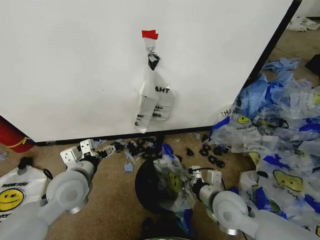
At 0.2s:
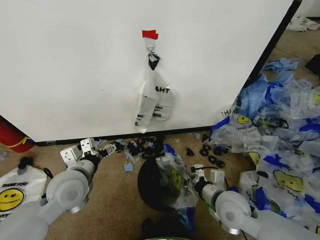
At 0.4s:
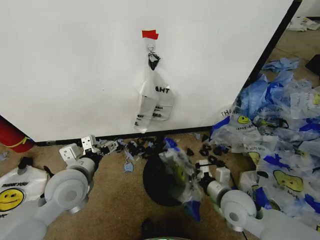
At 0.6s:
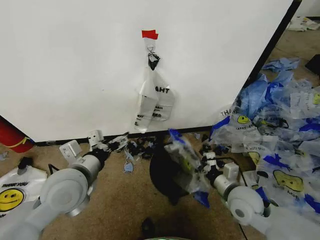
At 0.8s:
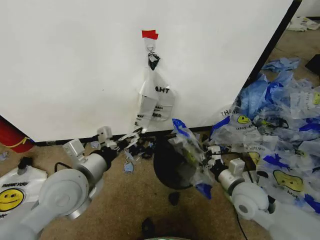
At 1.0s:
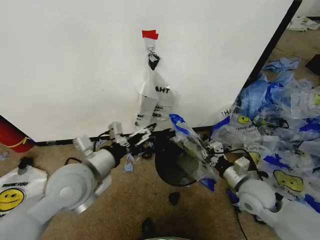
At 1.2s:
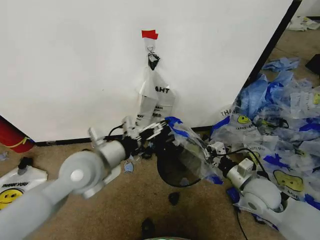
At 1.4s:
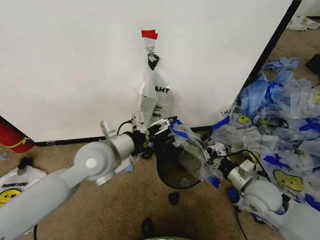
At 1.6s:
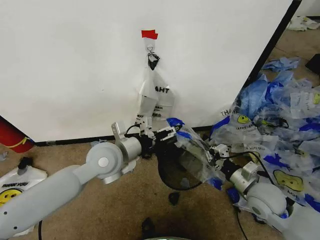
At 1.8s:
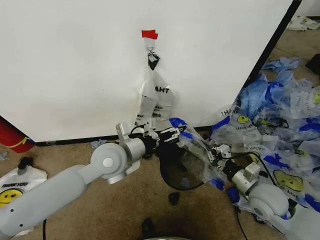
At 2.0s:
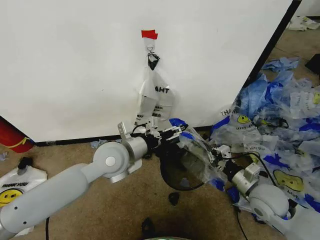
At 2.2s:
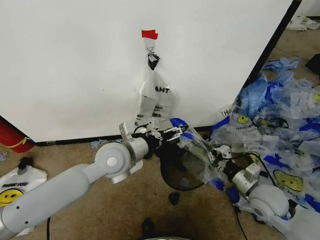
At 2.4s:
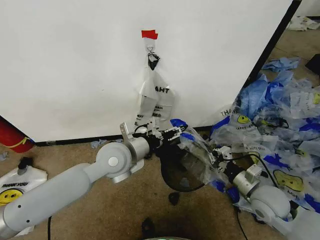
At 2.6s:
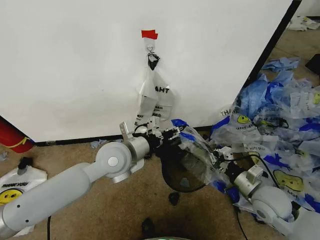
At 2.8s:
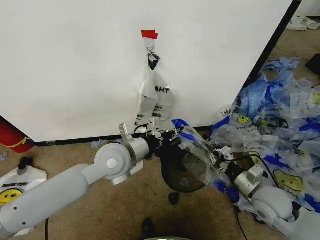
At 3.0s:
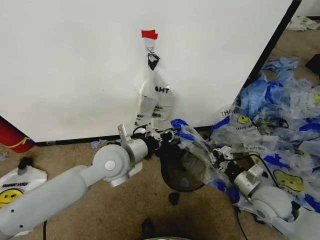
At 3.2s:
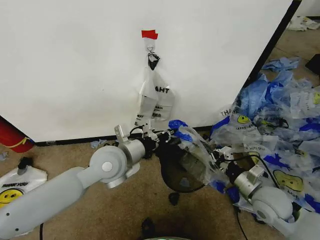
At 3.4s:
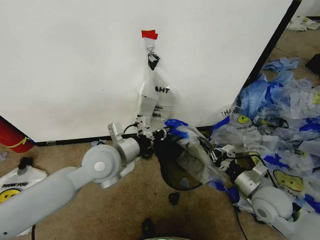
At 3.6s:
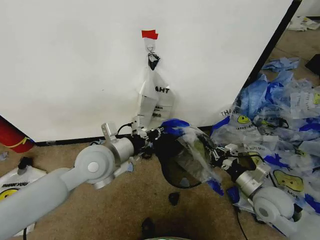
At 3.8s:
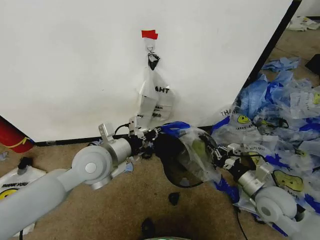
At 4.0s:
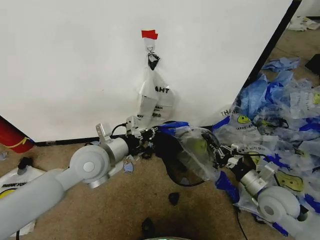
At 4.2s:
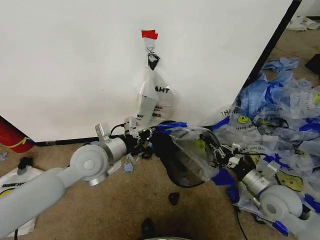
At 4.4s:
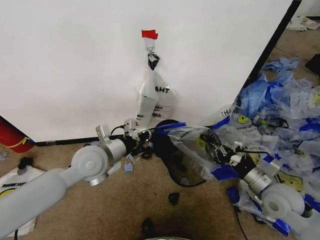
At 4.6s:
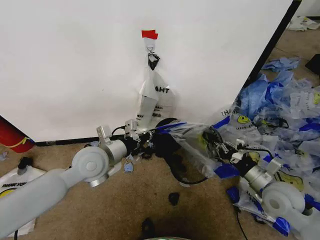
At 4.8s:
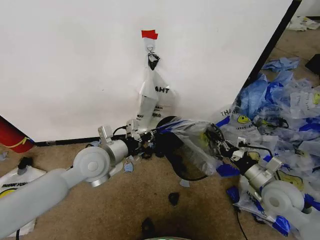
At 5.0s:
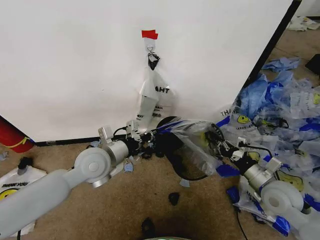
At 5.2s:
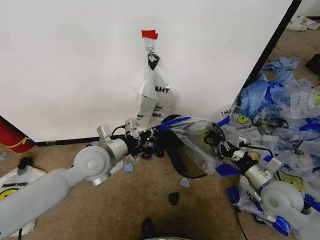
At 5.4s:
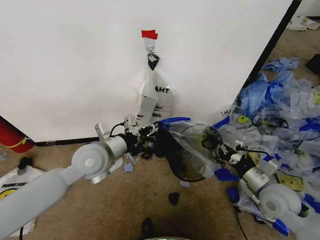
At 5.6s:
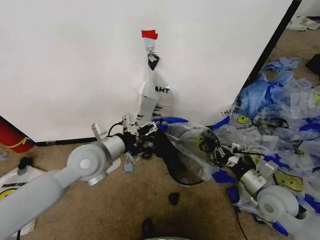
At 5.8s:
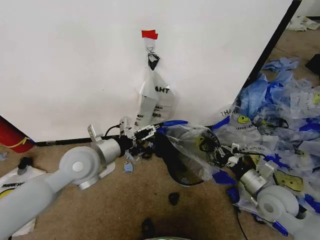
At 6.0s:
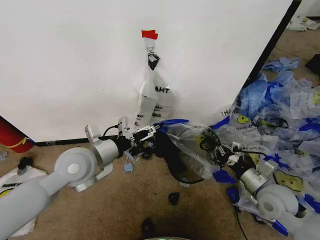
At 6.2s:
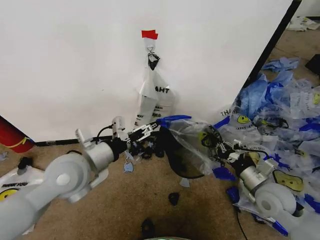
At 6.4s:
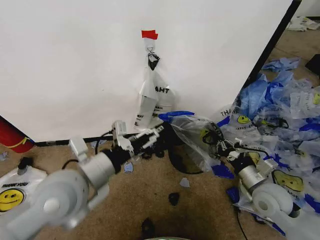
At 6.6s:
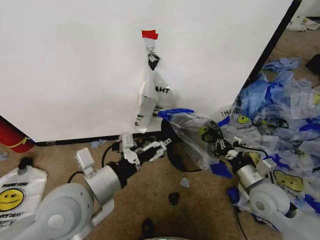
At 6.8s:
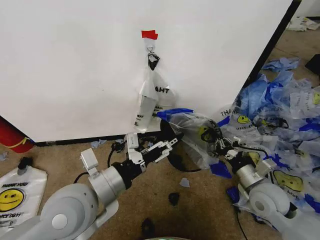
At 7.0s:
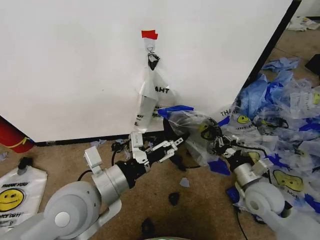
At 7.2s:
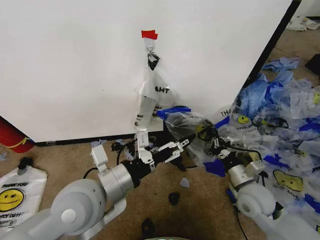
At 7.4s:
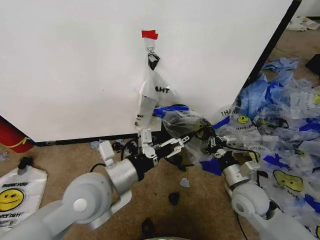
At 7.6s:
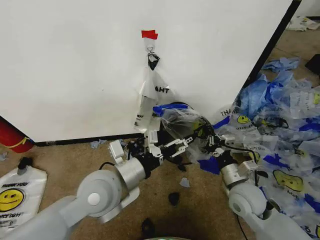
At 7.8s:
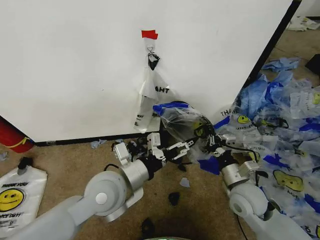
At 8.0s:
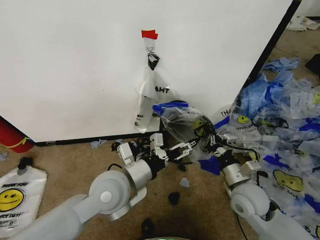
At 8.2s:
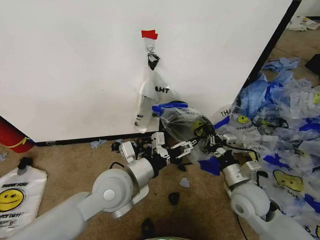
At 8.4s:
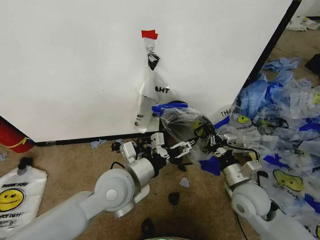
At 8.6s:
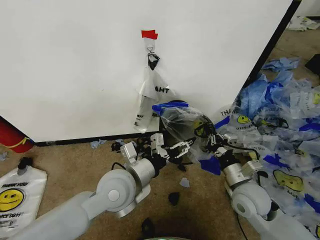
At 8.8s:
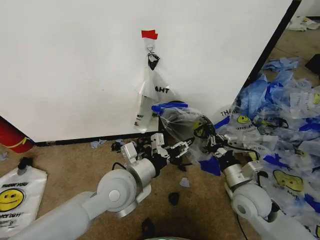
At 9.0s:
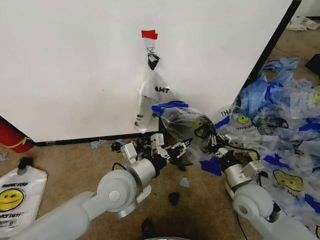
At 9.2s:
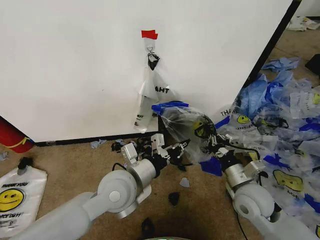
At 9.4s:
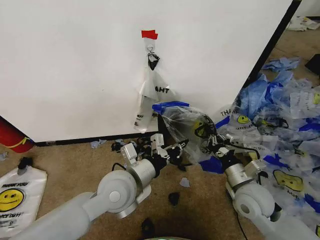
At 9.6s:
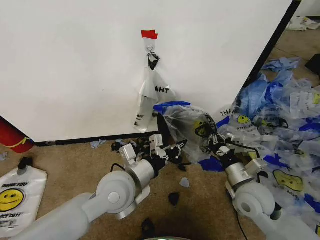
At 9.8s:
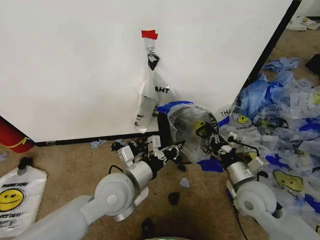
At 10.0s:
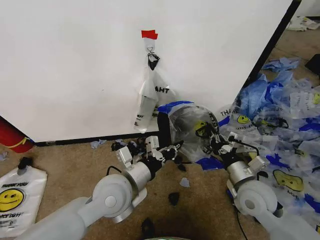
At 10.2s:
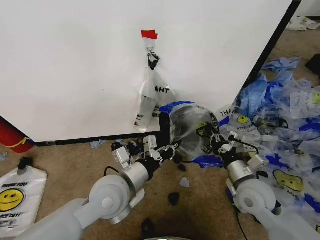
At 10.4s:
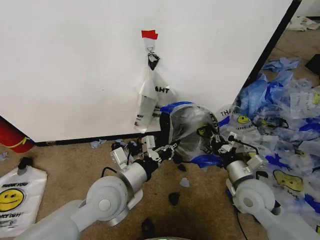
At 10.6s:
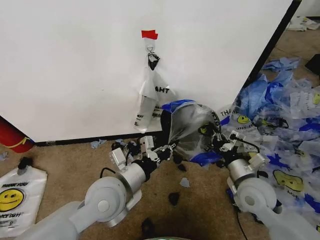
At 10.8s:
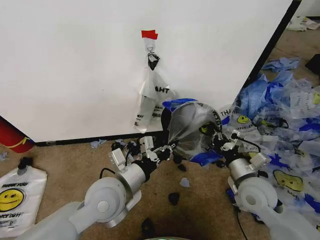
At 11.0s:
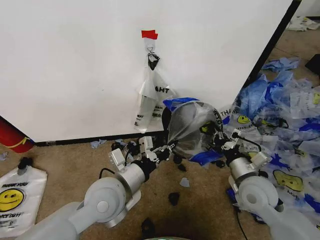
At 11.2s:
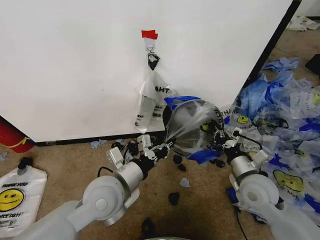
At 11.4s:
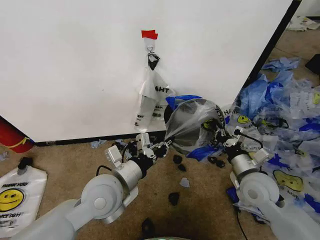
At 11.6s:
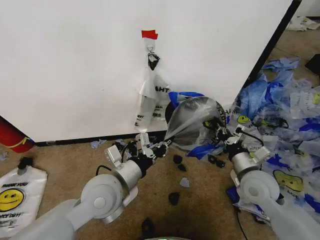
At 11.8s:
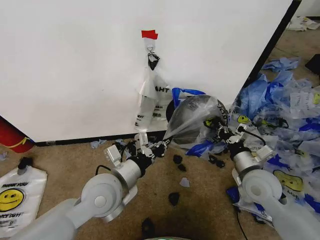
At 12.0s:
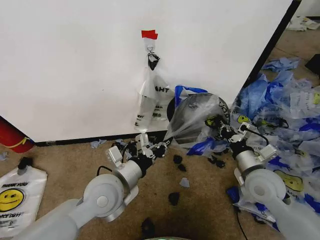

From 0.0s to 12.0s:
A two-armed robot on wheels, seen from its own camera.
Task of the whole recording: Pick up the garbage bag from the wall and place it over the trash bin.
From 0.0s to 1.6s: The right gripper is displaced to the right by about 10 cm. Meanwhile the left gripper goes approximately 10 cm to the right, forward and upward.
From 1.6s to 3.0s: The left gripper closes.
From 3.0s to 4.4s: The left gripper heads to the left, covering about 5 cm.
From 4.4s to 6.0s: The left gripper opens up.
From 6.0s to 7.6s: The left gripper goes approximately 10 cm to the right and backward. Meanwhile the right gripper goes some 10 cm to the left.
From 7.6s to 9.0s: The left gripper closes its fingers.
From 9.0s to 10.4s: The left gripper closes its fingers.
From 10.4s to 12.0s: There are only small adjustments of the grippers.

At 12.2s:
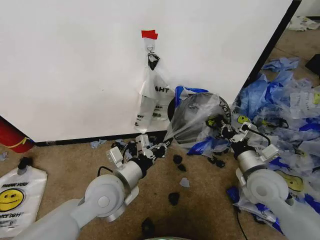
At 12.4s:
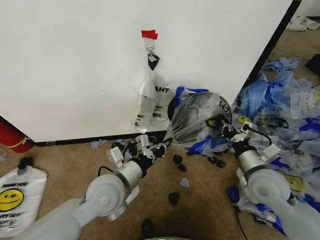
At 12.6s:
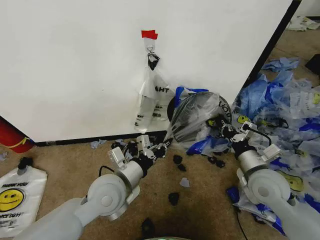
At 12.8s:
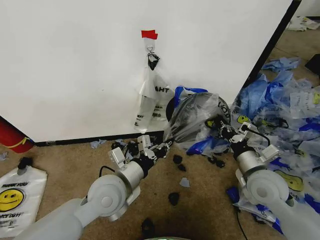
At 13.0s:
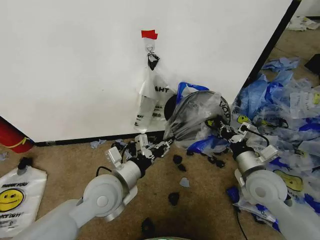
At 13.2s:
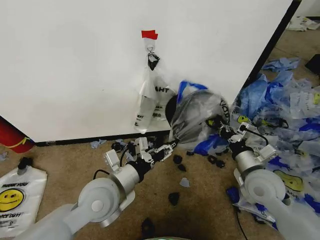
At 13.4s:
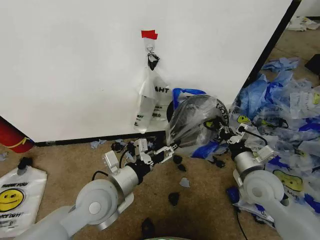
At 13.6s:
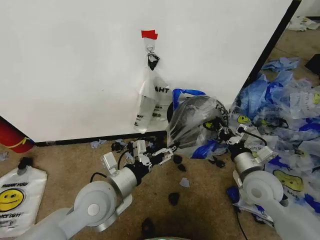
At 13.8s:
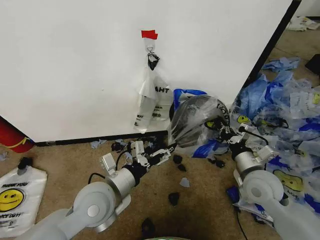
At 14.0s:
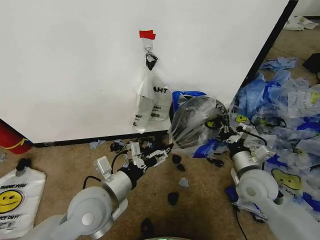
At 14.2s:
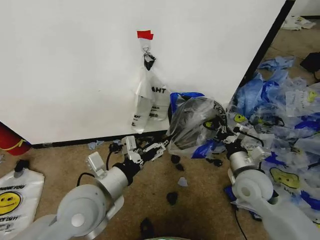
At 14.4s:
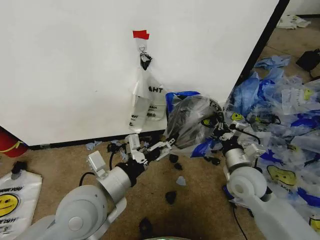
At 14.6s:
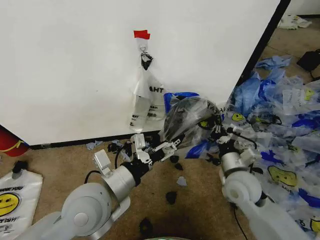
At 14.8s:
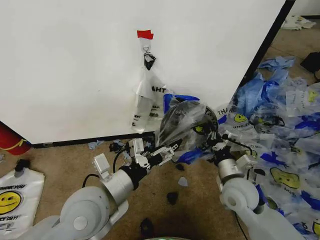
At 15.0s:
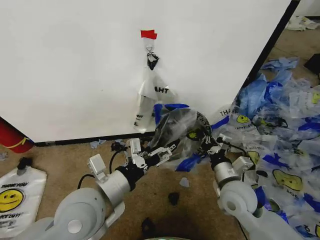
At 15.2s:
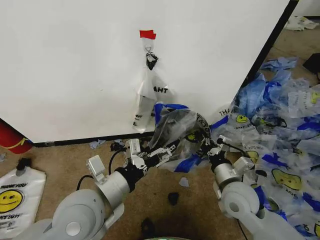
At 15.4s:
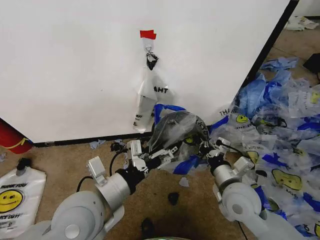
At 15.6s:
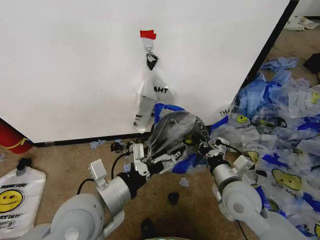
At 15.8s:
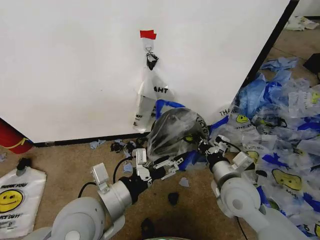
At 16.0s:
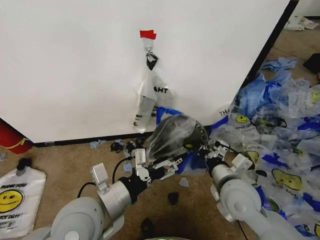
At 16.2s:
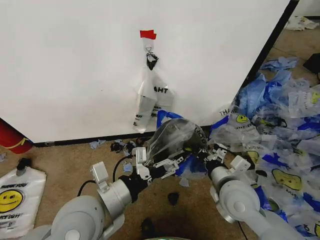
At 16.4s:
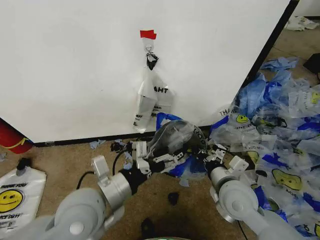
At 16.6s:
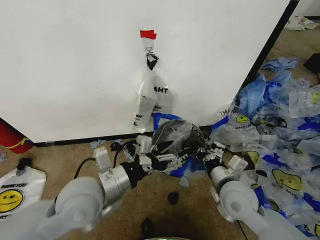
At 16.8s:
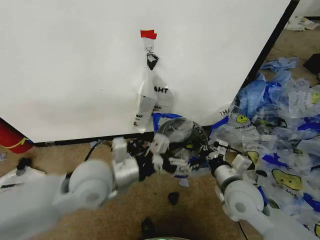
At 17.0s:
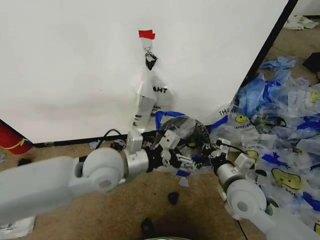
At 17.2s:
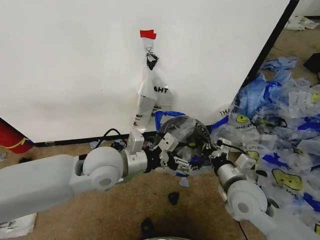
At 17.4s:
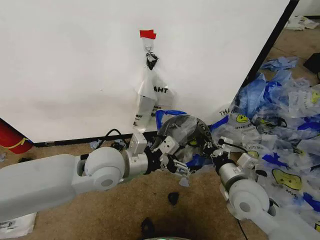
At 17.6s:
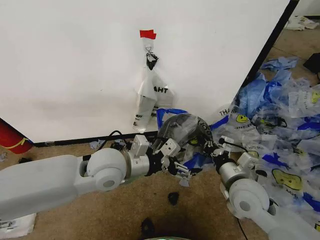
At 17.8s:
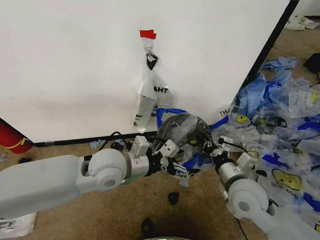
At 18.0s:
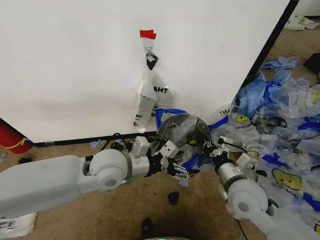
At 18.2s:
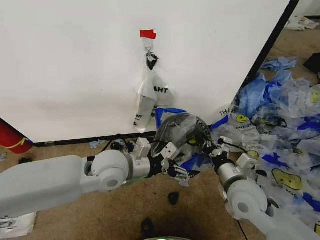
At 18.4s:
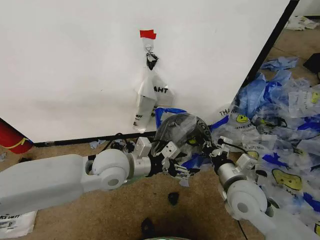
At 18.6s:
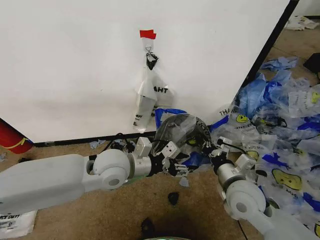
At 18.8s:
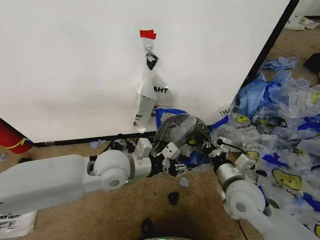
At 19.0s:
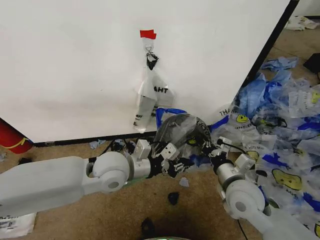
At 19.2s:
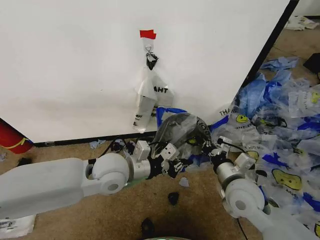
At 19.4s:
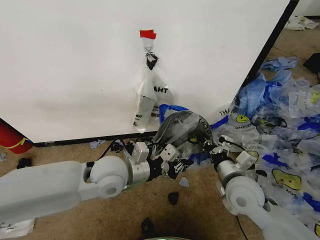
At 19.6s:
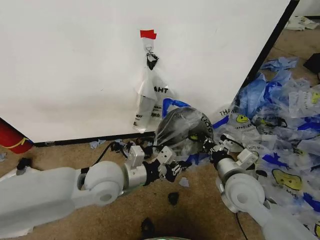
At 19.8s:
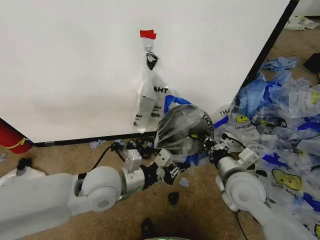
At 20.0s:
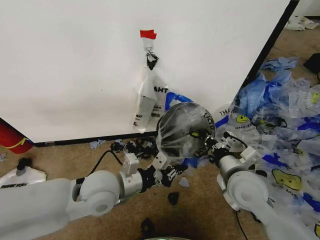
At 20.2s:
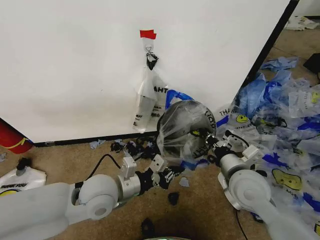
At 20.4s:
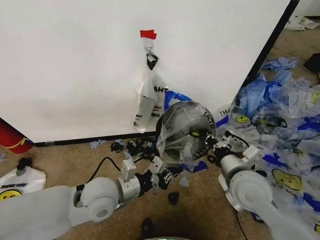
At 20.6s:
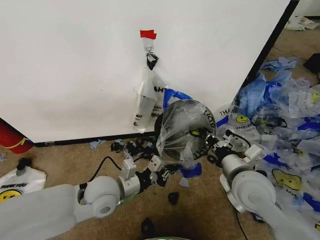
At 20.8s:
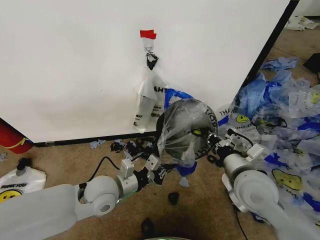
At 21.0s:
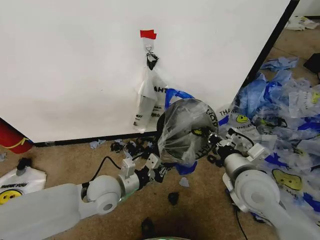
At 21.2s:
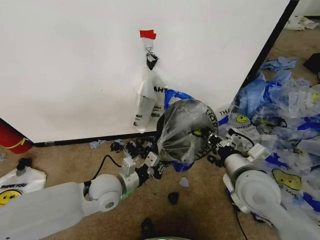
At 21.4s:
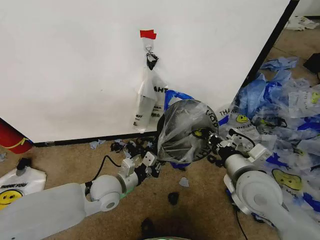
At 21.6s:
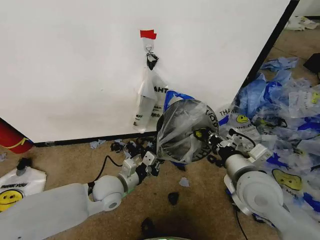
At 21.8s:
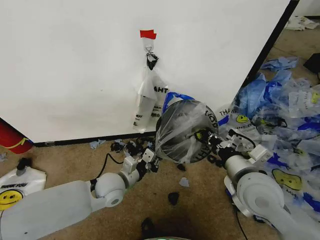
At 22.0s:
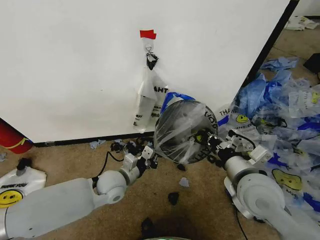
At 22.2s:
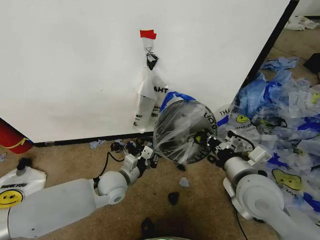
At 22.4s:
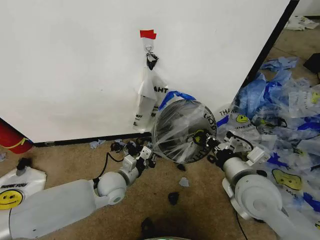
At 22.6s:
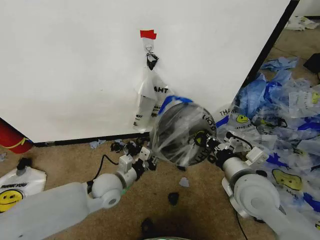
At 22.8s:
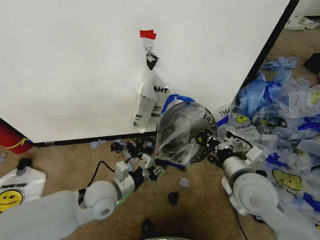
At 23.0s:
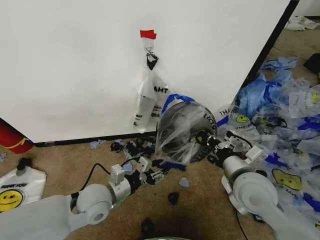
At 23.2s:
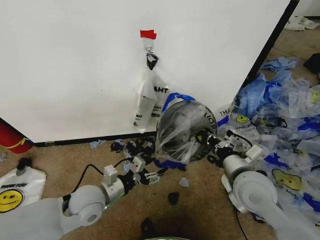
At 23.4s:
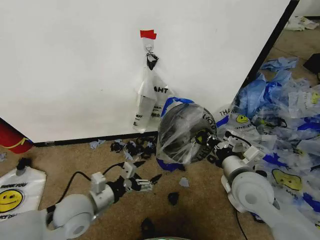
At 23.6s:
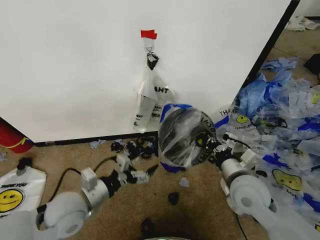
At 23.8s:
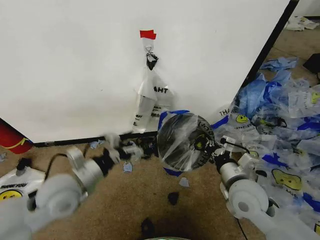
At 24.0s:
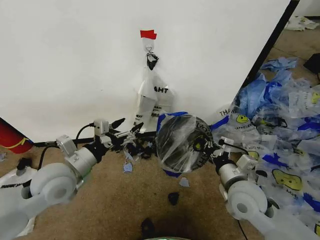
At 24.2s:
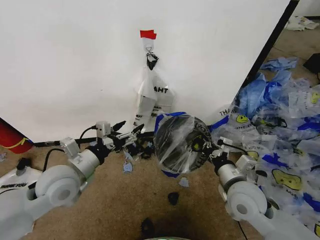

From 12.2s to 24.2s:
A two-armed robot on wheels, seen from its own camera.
Task of the whole recording: Pick up the garbage bag from the wall and place it over the trash bin.
From 12.2s to 13.8s: The left gripper opens.
From 13.8s to 15.2s: The right gripper shifts approximately 5 cm to the left. The left gripper shifts by approximately 5 cm.
From 16.6s to 18.2s: The left gripper moves forward, about 10 cm.
From 18.2s to 19.8s: The left gripper closes its fingers.
From 19.8s to 21.2s: The left gripper goes roughly 10 cm downward.
From 21.2s to 22.6s: The grippers make only small movements.
From 22.6s to 24.2s: The right gripper shifts approximately 5 cm downward. The left gripper goes some 15 cm upward and to the left, and opens.
